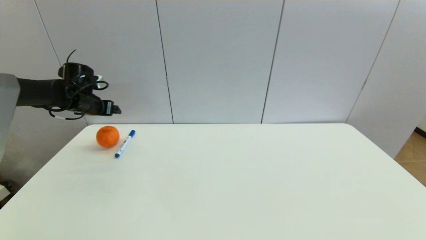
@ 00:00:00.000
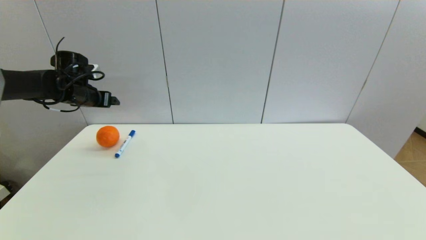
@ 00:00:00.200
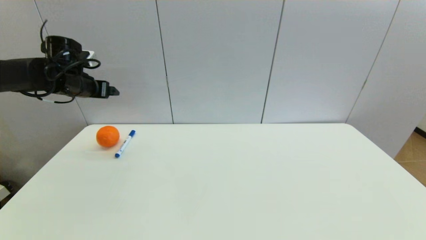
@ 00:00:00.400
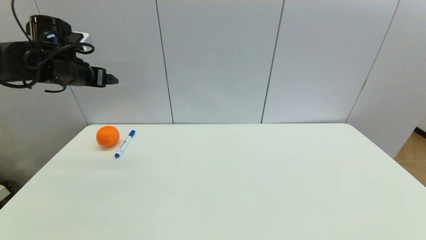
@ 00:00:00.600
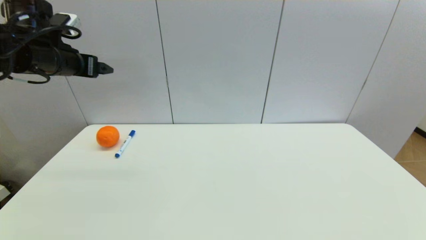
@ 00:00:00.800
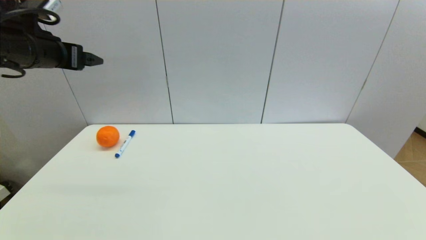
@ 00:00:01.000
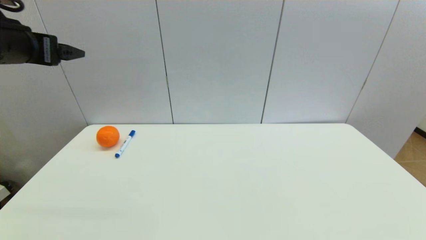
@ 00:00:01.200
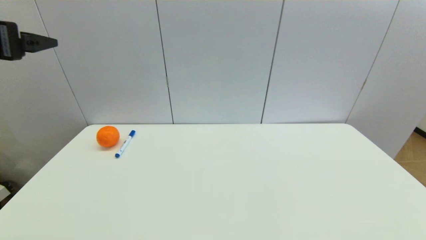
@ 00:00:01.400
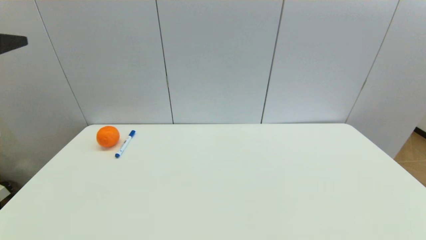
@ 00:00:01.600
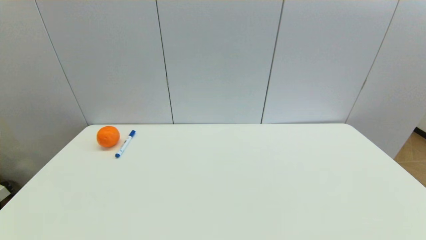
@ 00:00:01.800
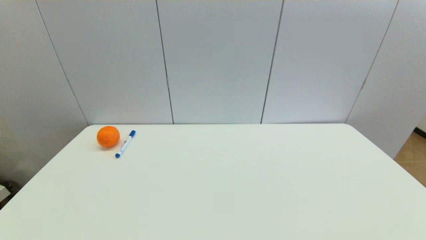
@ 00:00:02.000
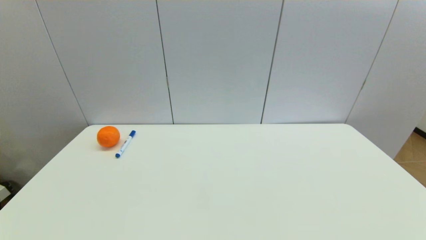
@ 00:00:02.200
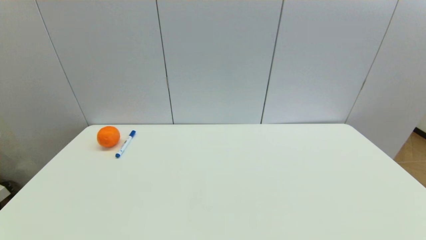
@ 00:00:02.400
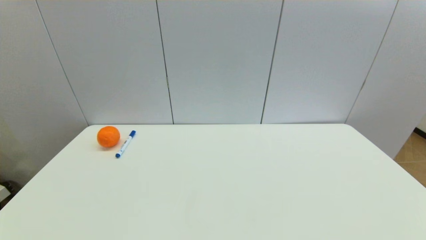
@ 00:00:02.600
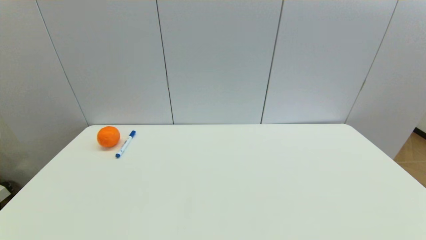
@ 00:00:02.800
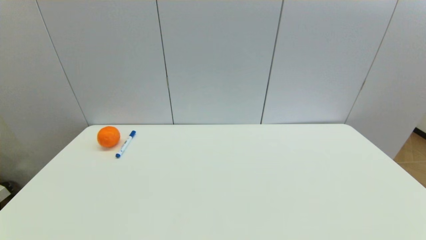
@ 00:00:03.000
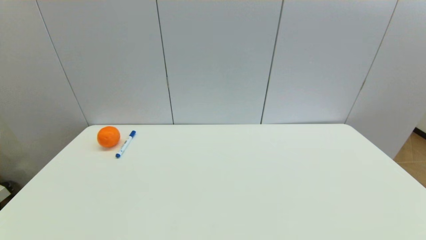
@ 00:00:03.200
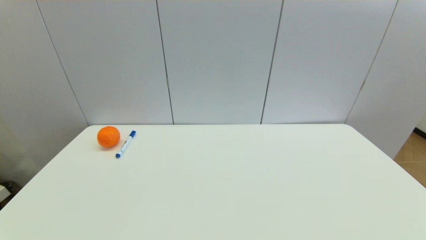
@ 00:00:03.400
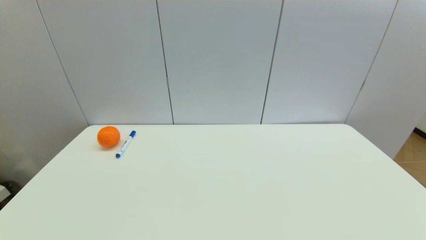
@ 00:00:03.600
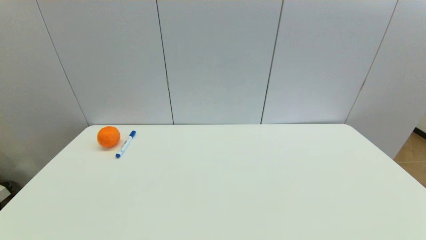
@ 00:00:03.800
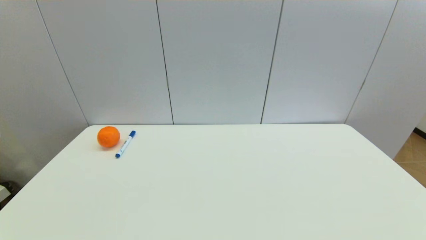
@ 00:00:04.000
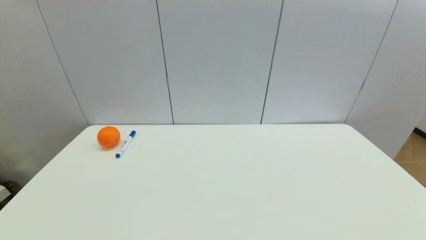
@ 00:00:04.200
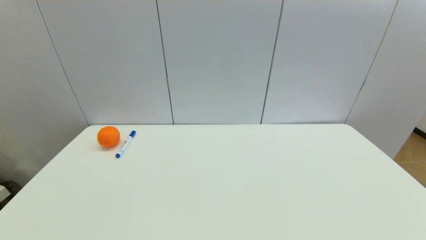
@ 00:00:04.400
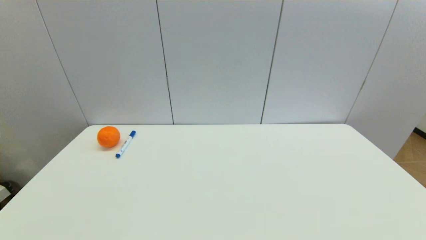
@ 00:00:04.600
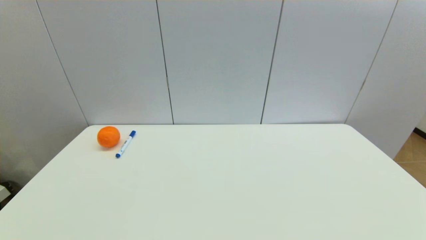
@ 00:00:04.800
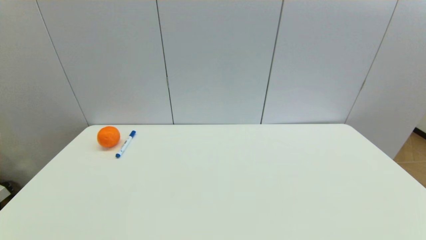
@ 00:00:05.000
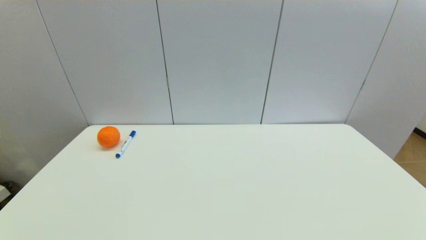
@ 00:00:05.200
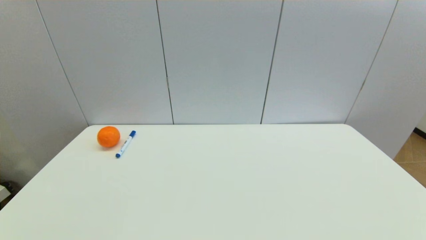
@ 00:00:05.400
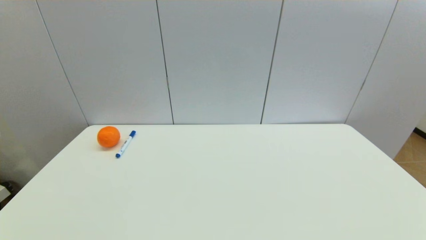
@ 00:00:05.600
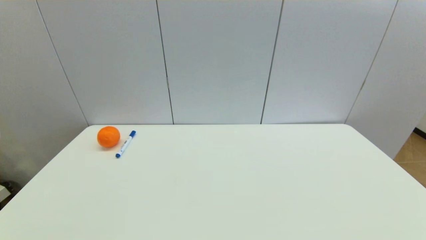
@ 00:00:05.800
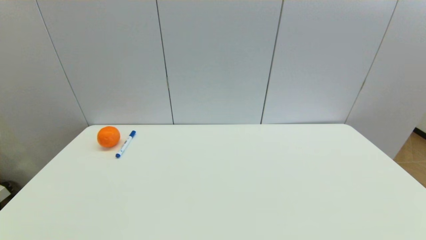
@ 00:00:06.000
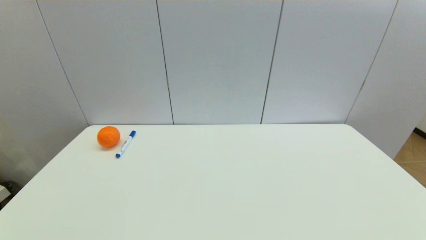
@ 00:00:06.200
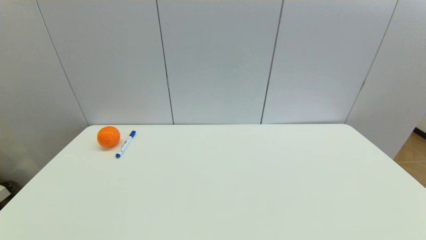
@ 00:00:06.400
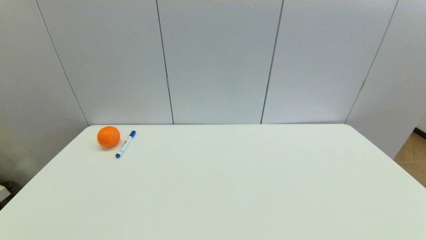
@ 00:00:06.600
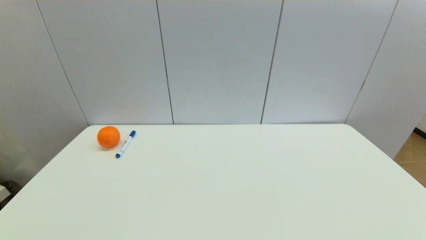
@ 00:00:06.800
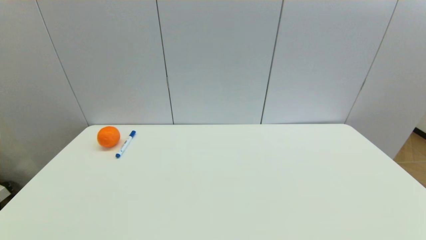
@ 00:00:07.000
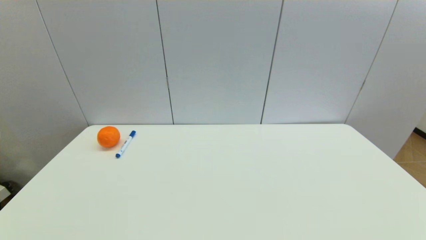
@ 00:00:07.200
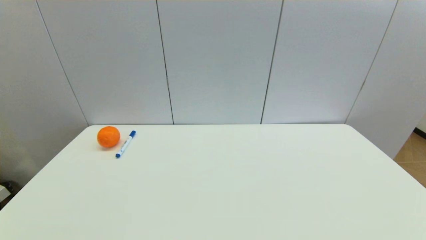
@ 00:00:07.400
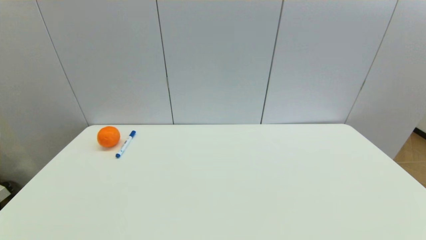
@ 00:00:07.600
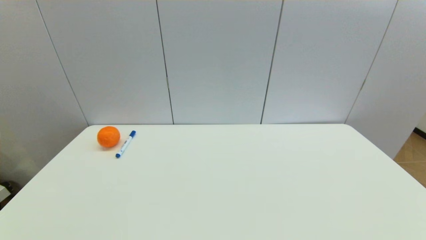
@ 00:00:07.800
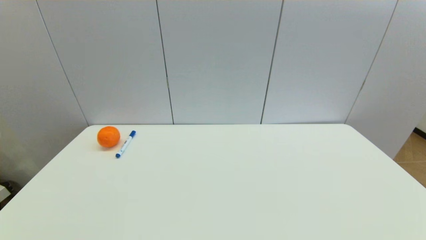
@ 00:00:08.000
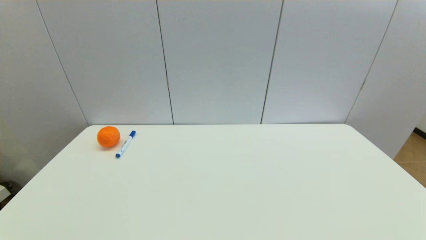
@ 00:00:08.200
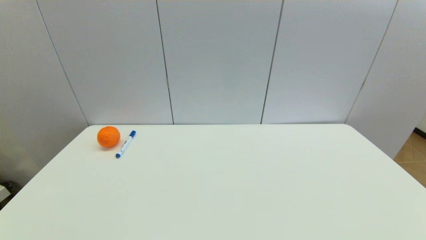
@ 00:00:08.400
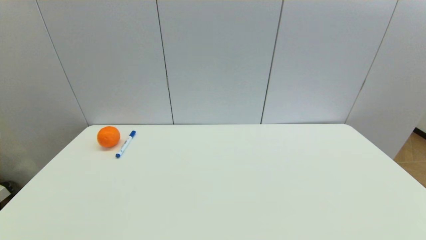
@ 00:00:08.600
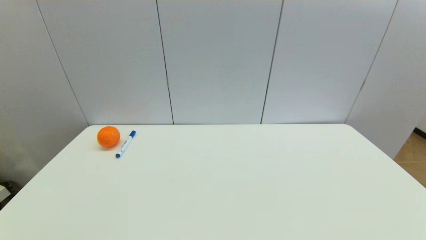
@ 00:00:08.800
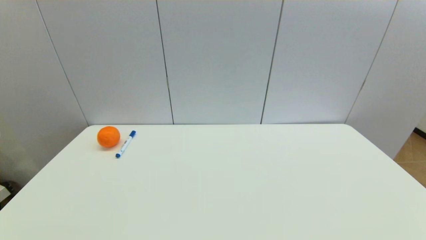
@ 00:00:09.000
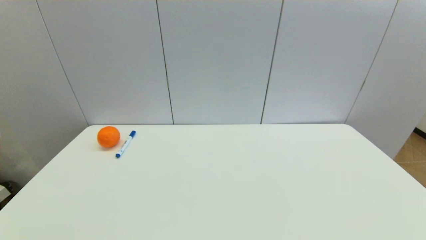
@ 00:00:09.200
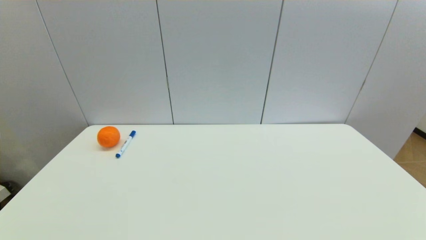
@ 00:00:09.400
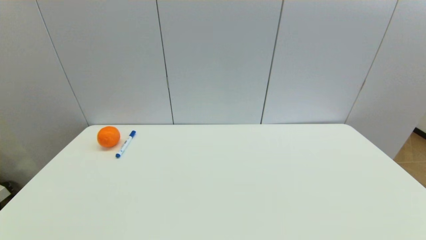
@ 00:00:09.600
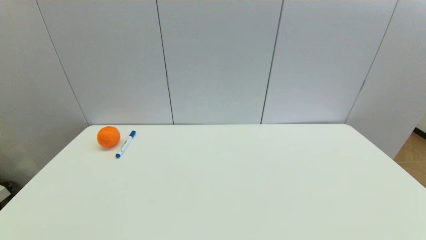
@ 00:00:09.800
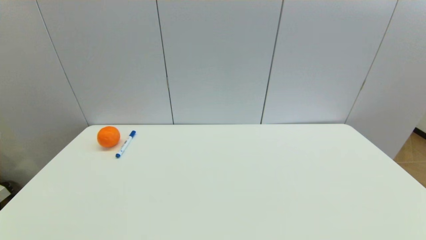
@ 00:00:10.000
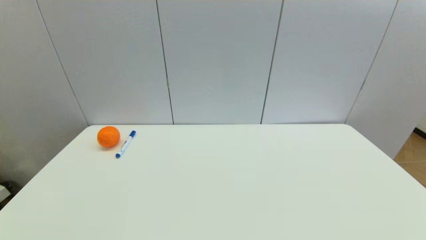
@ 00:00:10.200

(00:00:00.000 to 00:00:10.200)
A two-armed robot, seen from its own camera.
00:00:00.000 - 00:00:01.400: The left gripper heads backward and upward, covering roughly 30 cm.
00:00:01.400 - 00:00:03.000: The left gripper travels backward and downward by approximately 30 cm.
00:00:05.800 - 00:00:10.200: Both grippers stay put.
